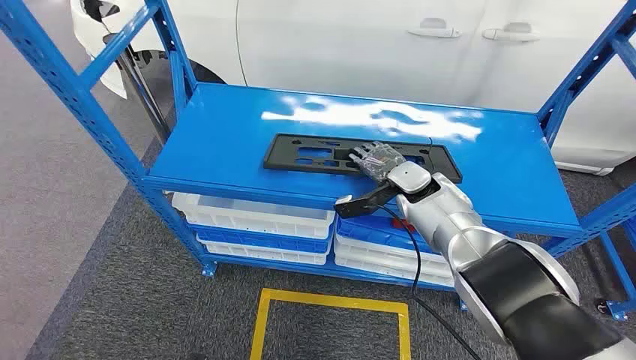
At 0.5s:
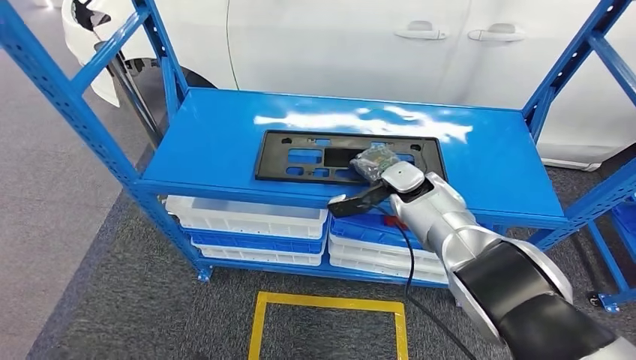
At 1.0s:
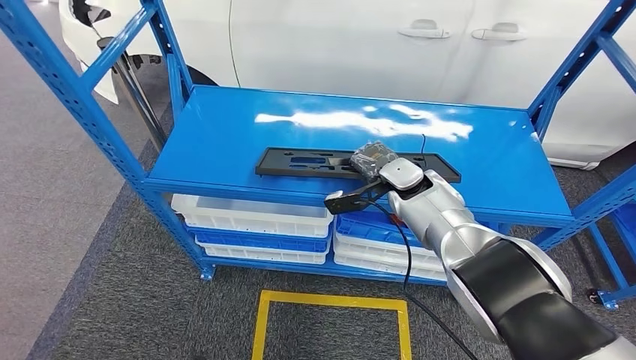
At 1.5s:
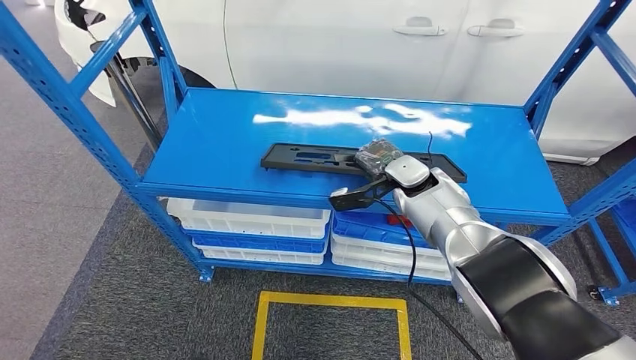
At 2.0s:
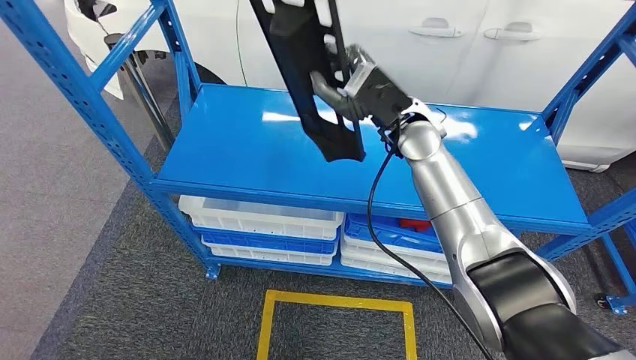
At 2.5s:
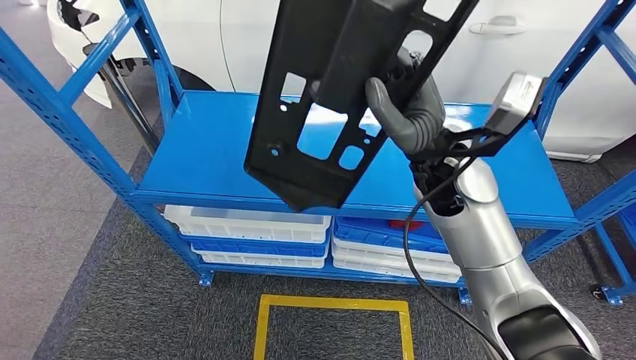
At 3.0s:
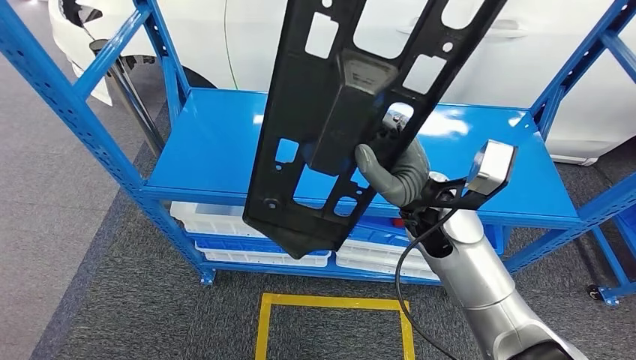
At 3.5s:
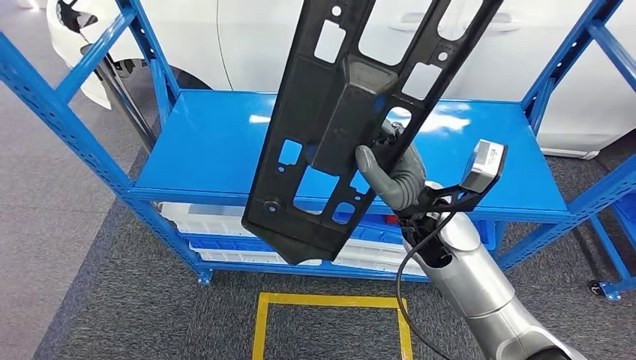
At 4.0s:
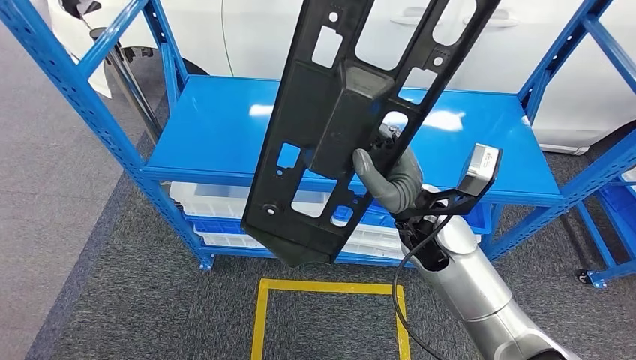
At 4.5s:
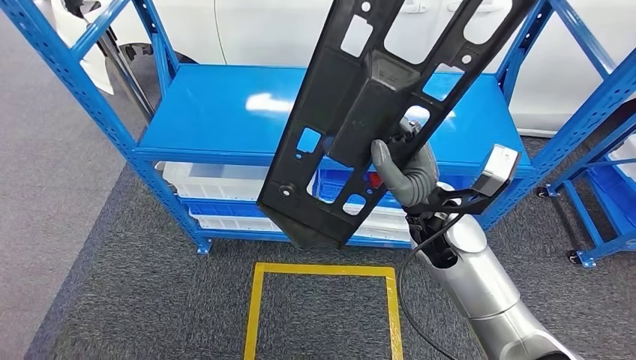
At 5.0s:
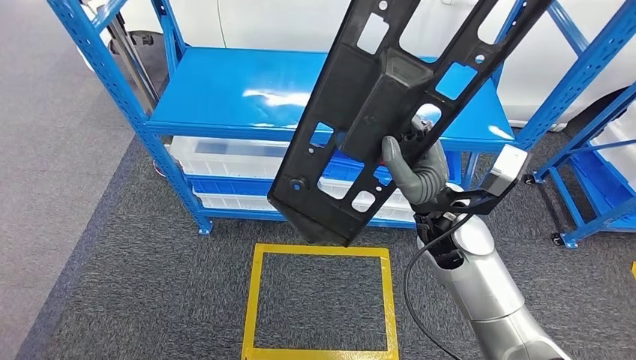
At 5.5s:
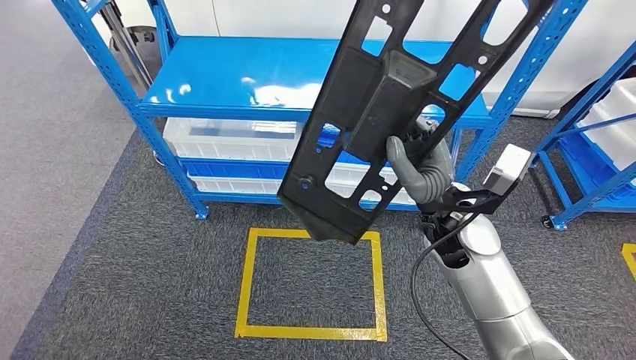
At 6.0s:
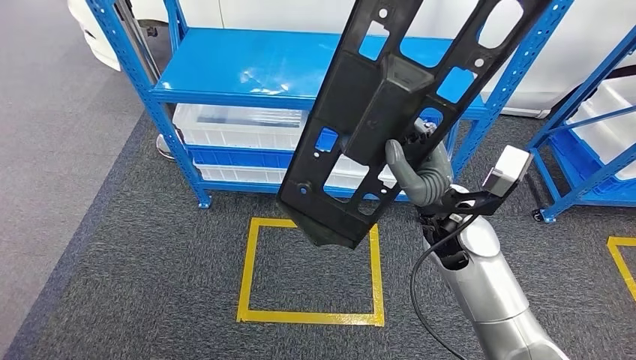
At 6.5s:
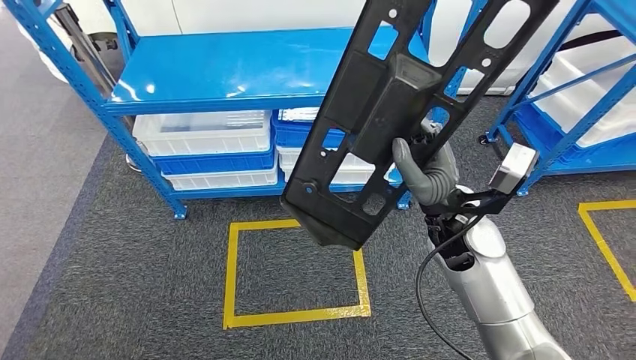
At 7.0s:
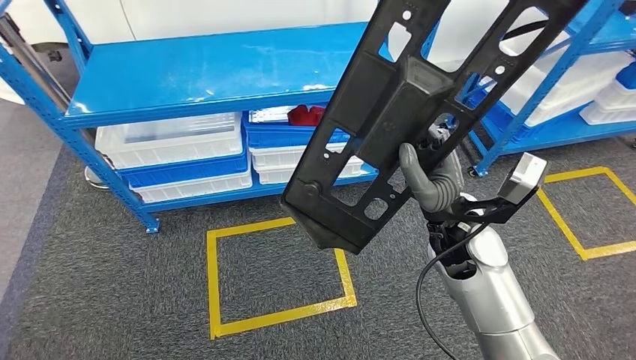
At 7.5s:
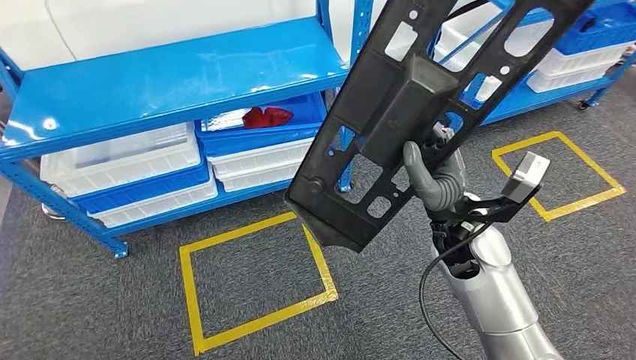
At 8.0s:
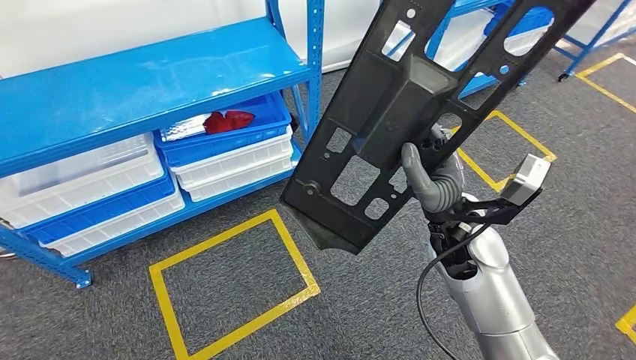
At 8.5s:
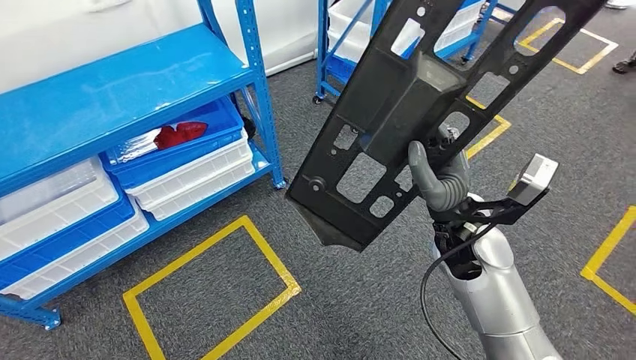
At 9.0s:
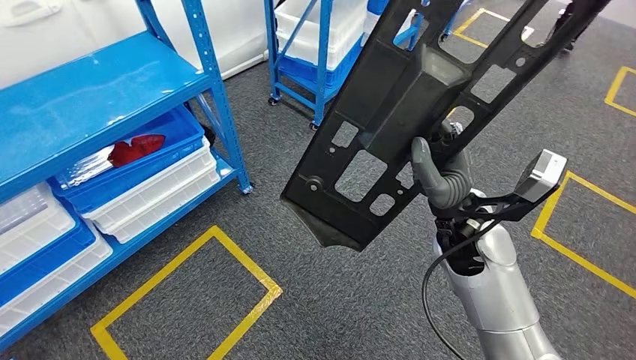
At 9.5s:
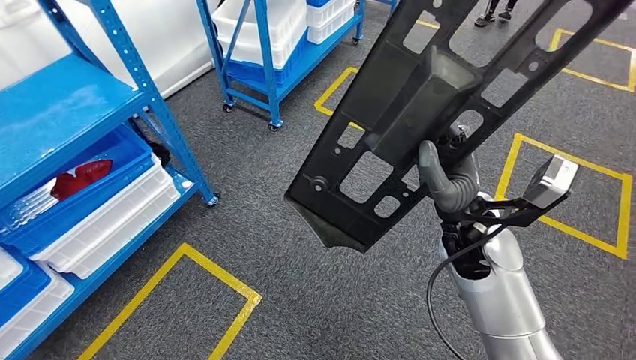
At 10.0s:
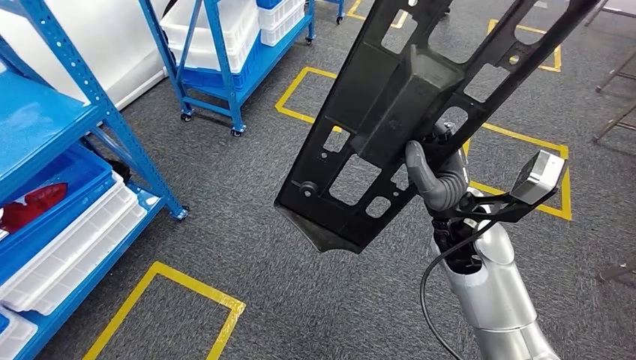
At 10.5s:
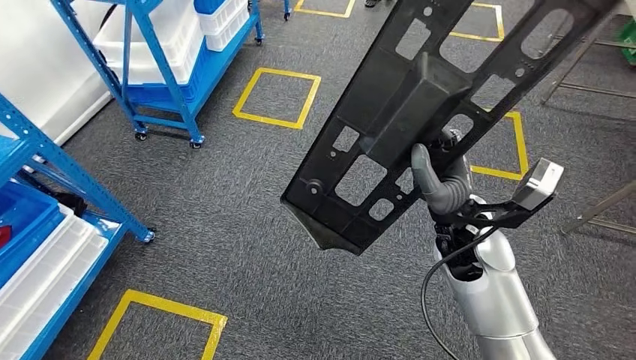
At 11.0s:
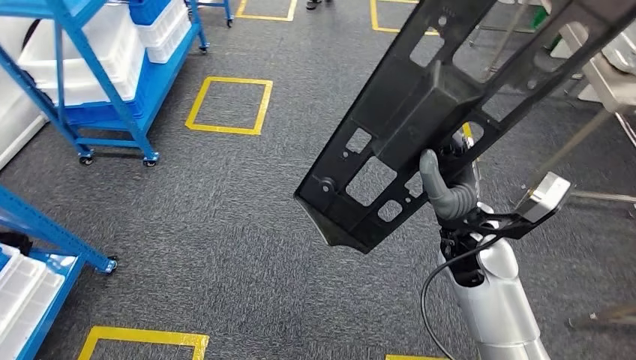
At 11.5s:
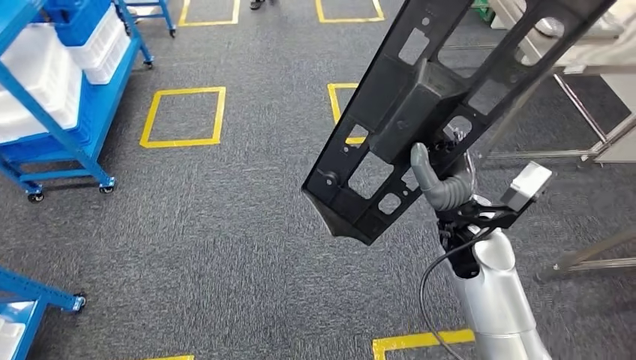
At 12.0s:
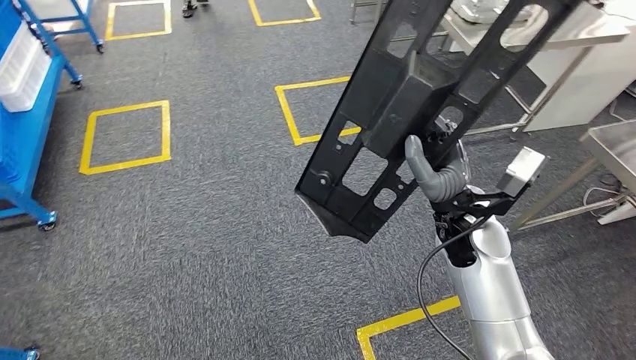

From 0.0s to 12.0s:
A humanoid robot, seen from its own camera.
Step, from 0.0s to 2.5s: Pick up the large material from the shelf.

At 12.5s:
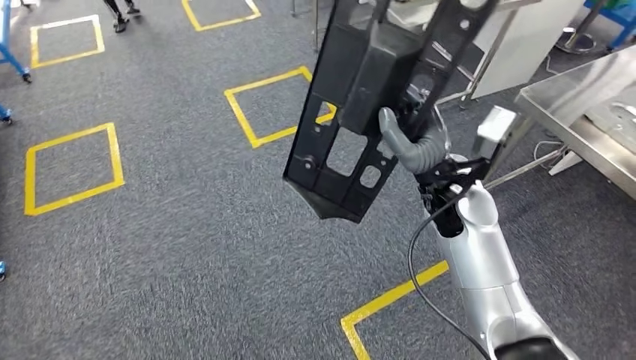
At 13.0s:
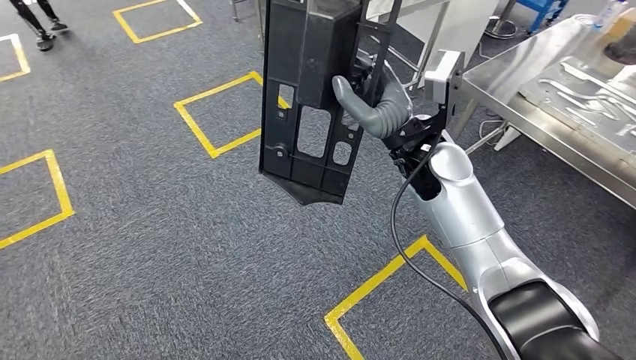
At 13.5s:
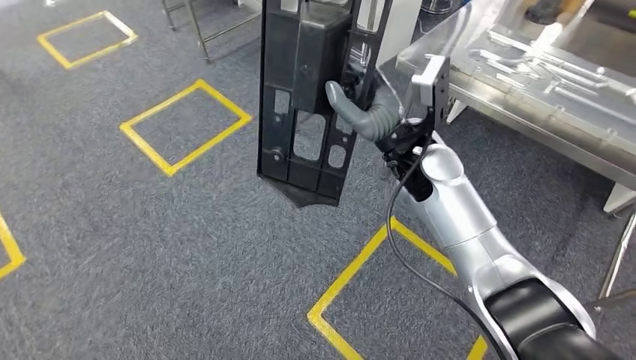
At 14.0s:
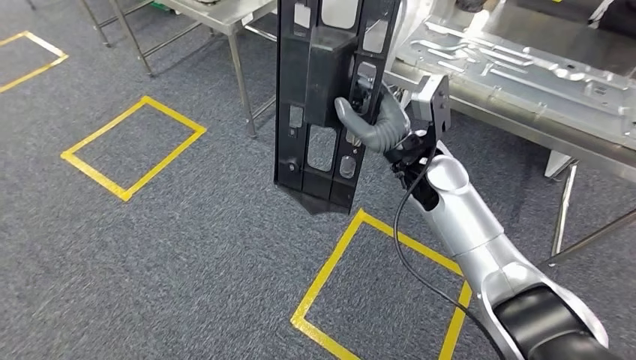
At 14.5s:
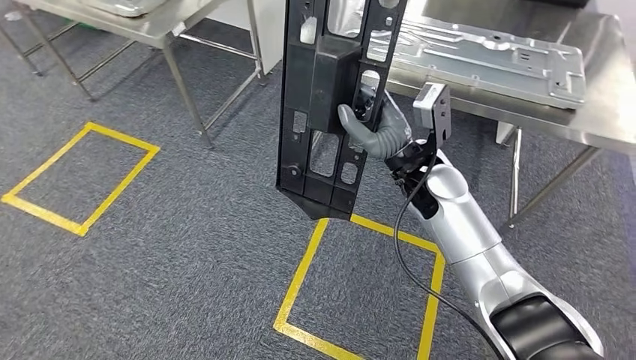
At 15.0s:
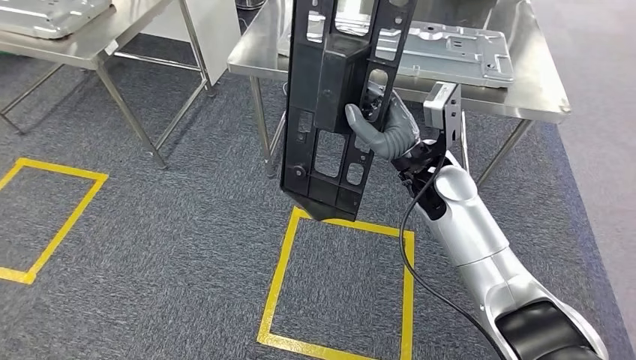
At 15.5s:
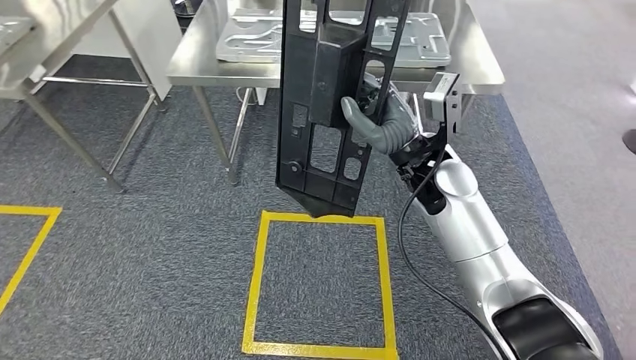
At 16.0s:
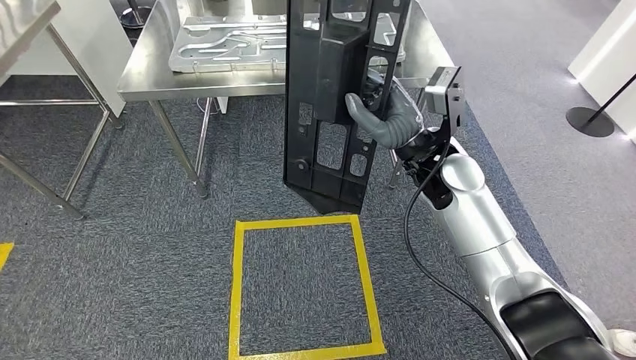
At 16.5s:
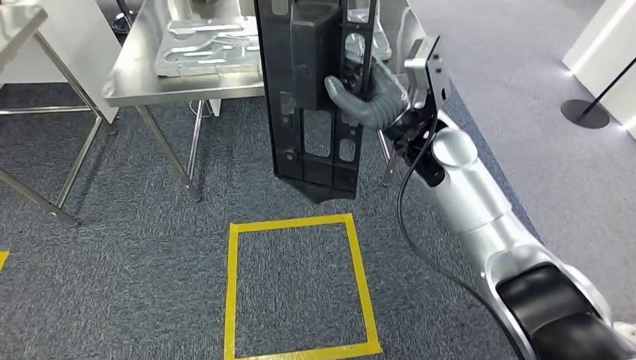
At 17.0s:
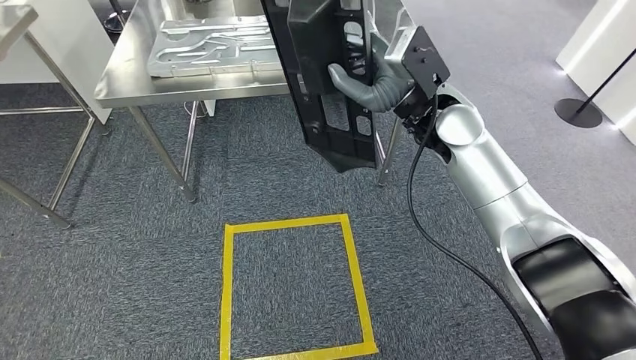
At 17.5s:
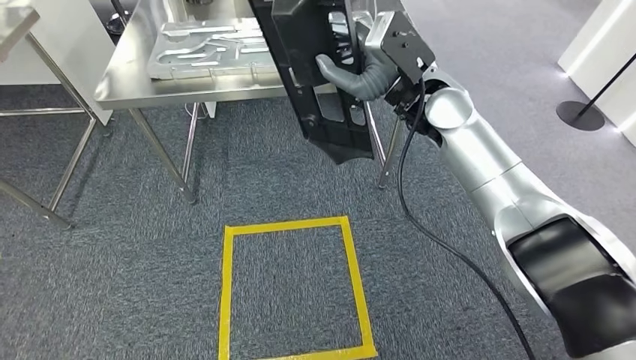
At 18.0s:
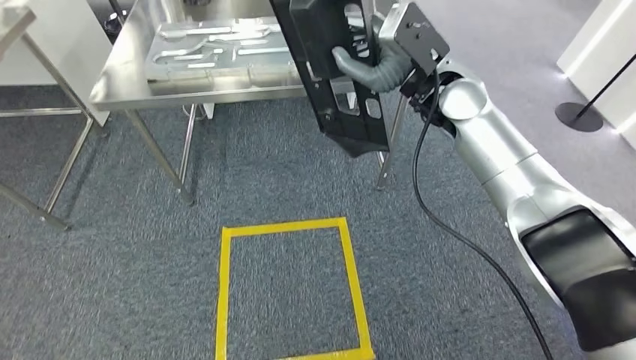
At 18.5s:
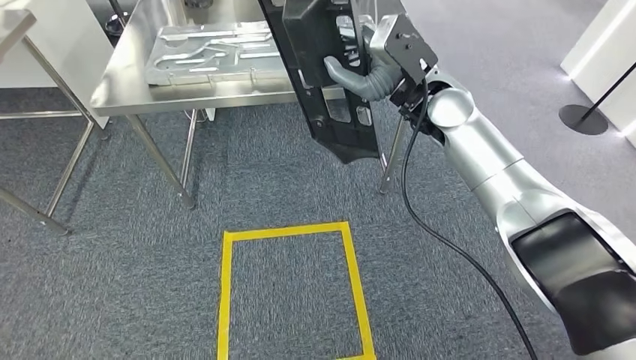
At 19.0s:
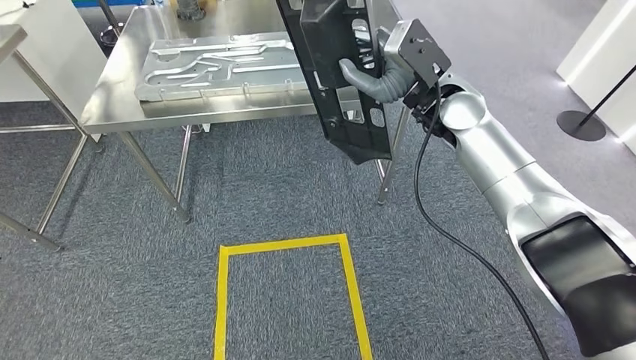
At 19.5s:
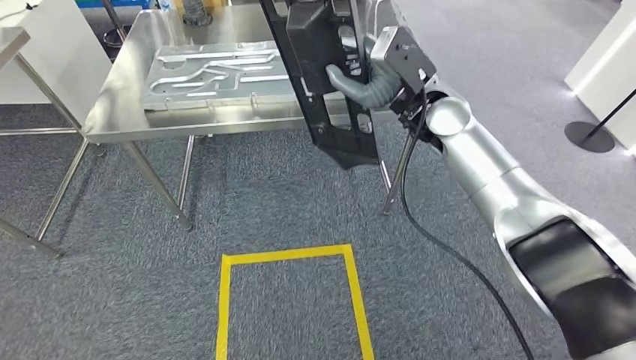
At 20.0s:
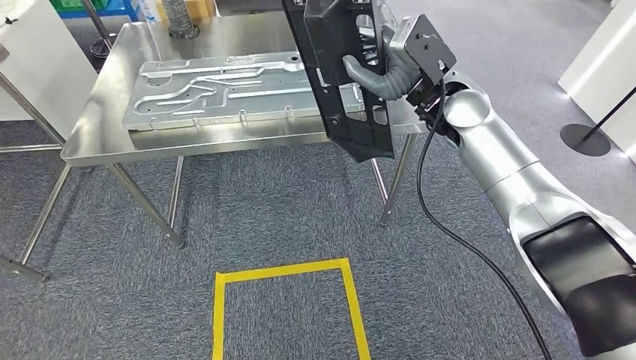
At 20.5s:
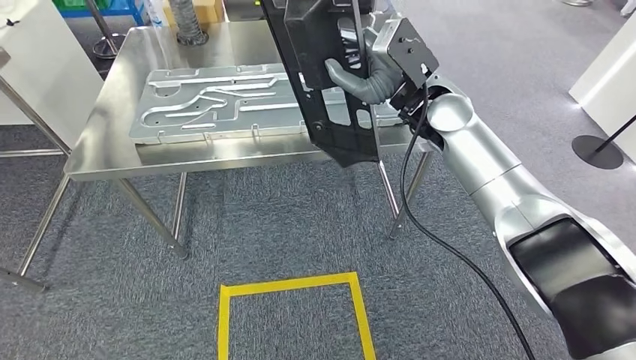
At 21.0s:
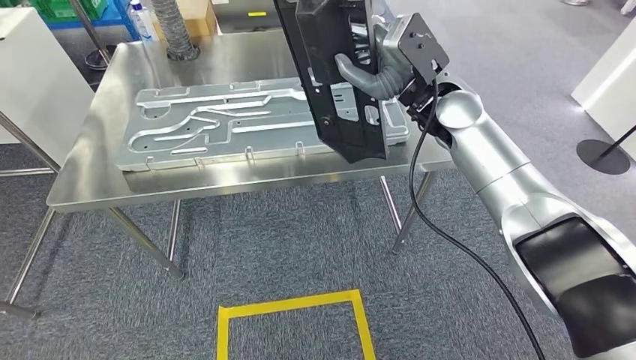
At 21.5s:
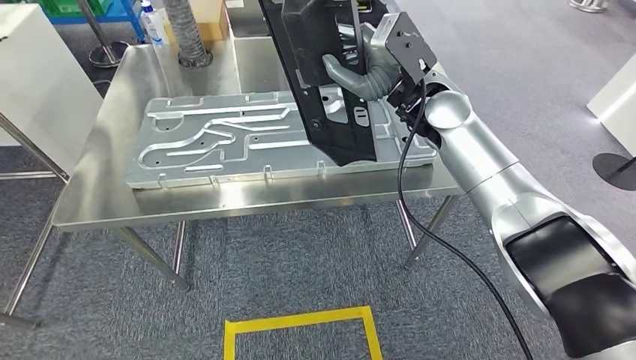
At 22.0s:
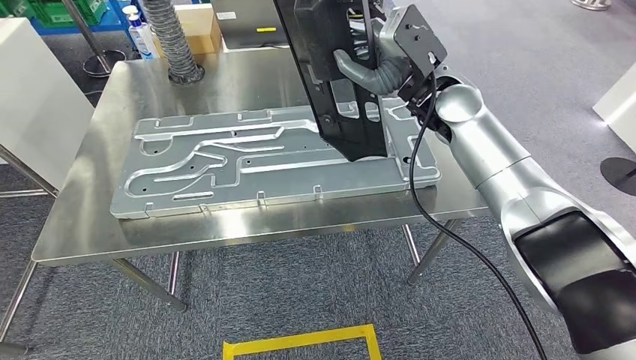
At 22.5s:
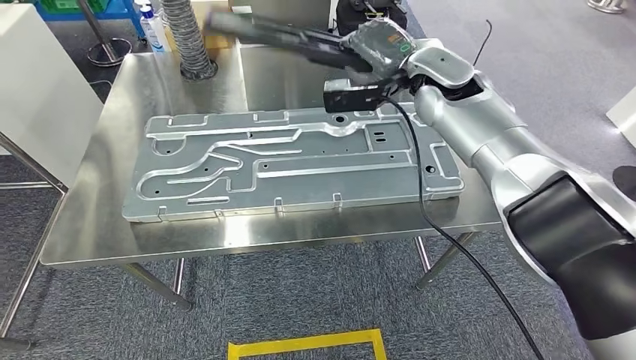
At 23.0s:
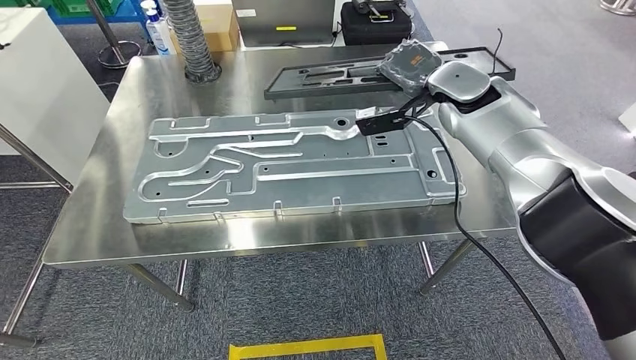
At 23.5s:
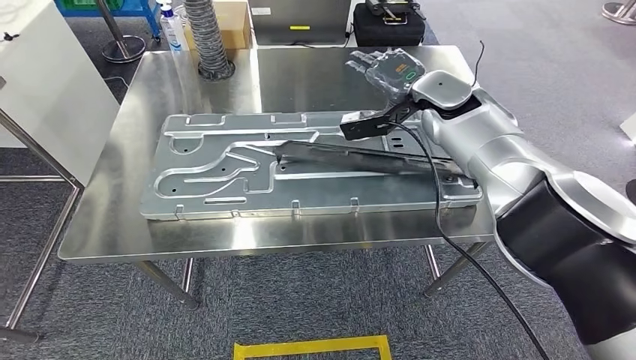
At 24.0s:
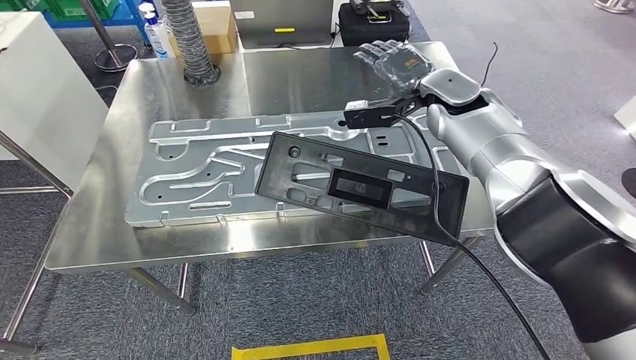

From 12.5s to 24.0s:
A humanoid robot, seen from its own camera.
Step, from 12.5s to 21.5s: Move the large material to the workbench.
